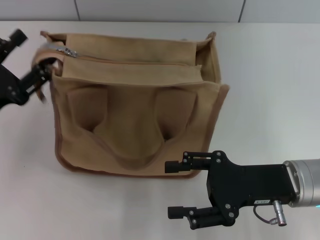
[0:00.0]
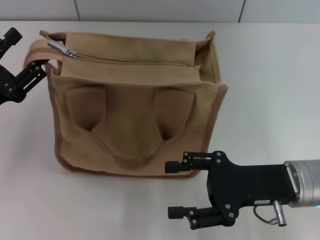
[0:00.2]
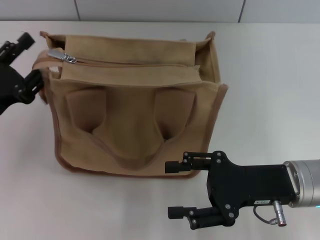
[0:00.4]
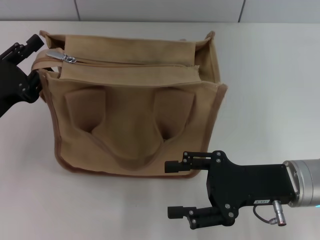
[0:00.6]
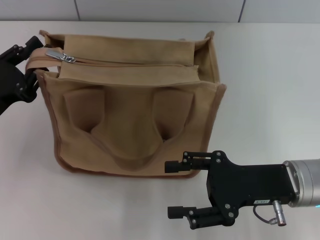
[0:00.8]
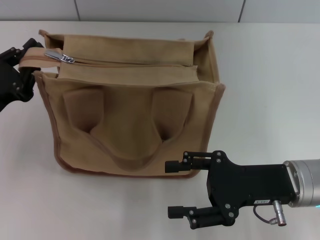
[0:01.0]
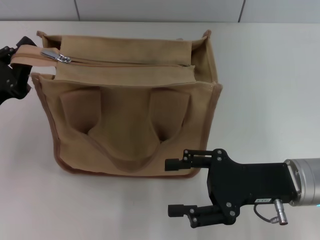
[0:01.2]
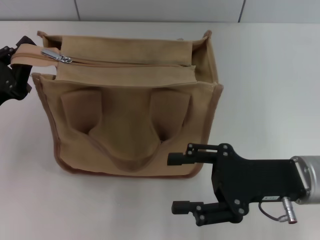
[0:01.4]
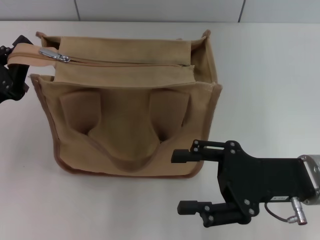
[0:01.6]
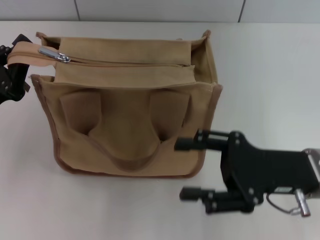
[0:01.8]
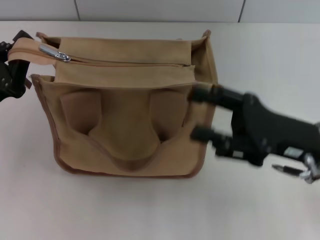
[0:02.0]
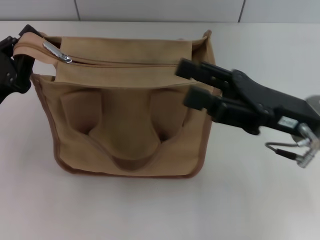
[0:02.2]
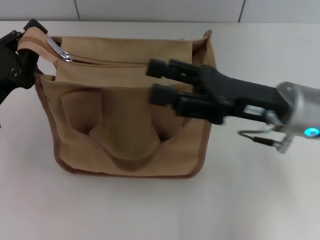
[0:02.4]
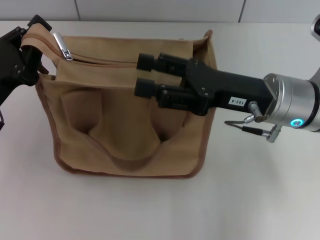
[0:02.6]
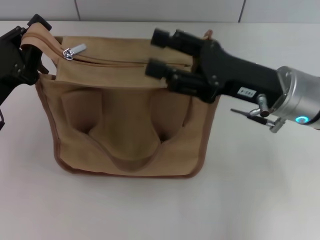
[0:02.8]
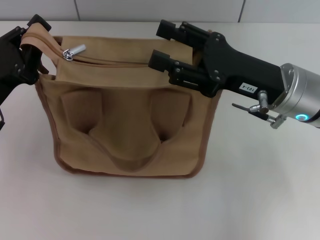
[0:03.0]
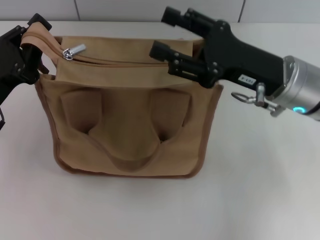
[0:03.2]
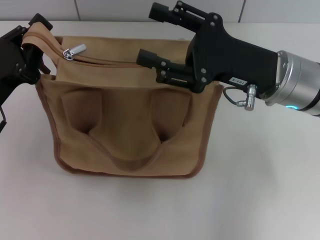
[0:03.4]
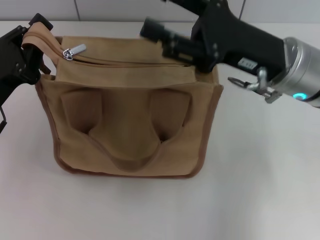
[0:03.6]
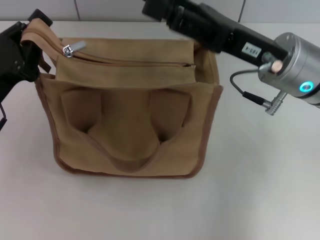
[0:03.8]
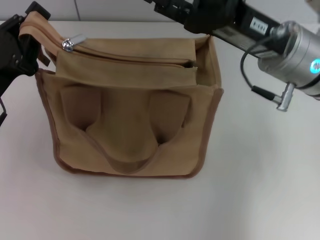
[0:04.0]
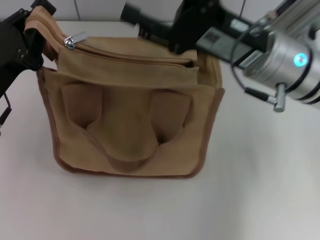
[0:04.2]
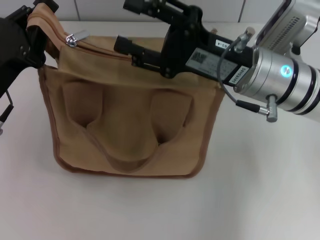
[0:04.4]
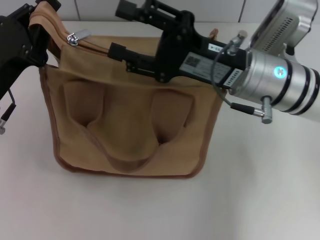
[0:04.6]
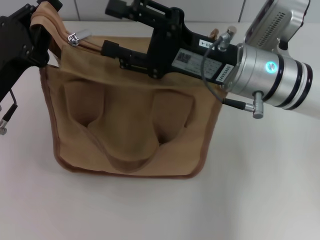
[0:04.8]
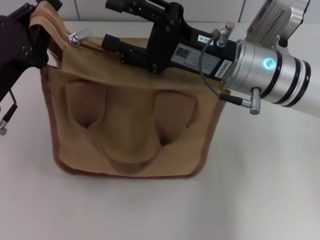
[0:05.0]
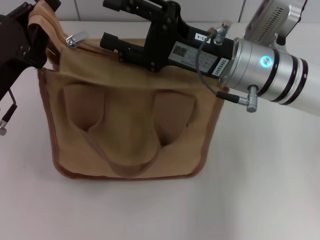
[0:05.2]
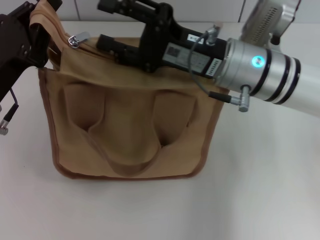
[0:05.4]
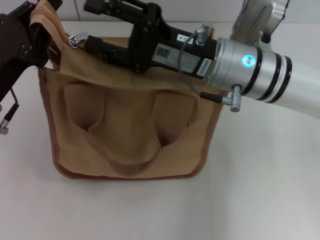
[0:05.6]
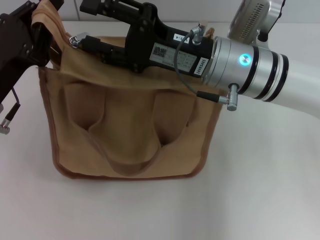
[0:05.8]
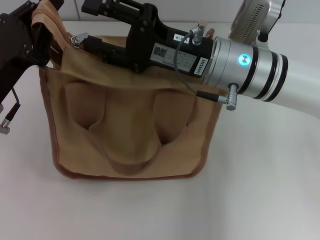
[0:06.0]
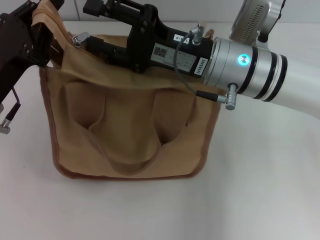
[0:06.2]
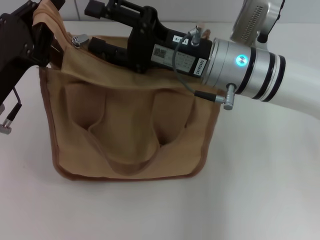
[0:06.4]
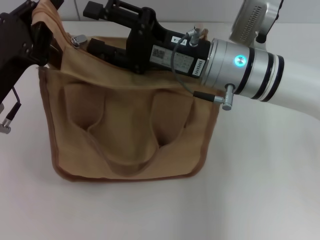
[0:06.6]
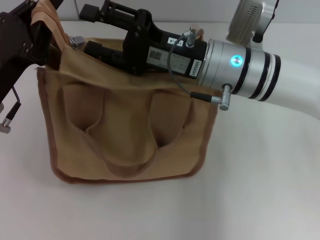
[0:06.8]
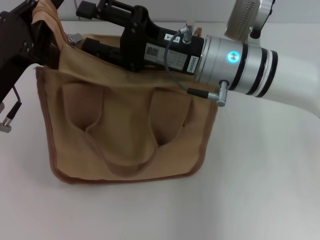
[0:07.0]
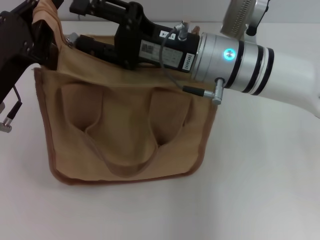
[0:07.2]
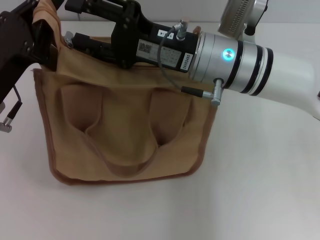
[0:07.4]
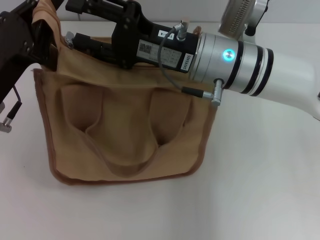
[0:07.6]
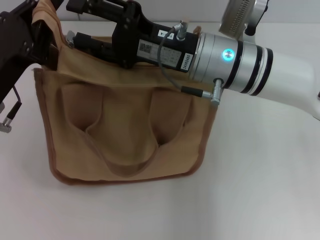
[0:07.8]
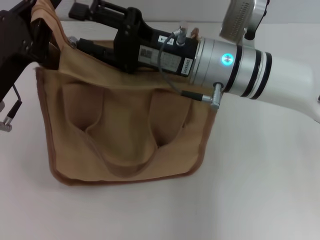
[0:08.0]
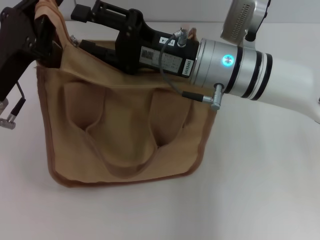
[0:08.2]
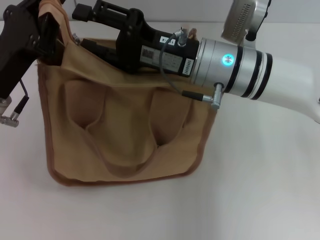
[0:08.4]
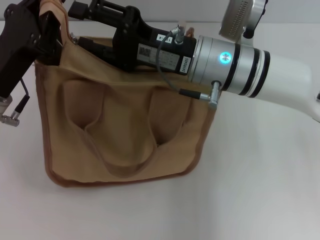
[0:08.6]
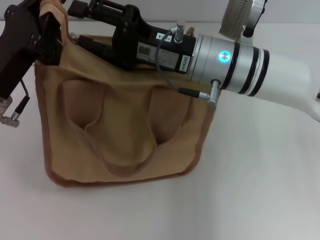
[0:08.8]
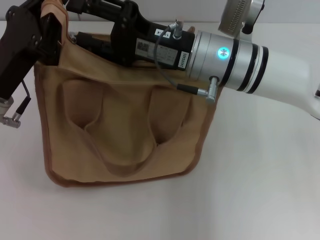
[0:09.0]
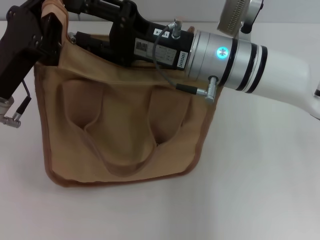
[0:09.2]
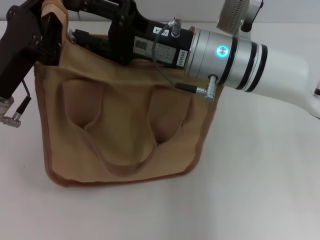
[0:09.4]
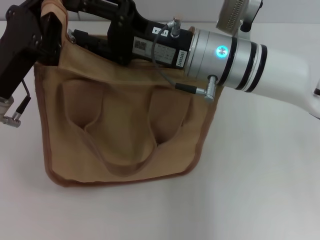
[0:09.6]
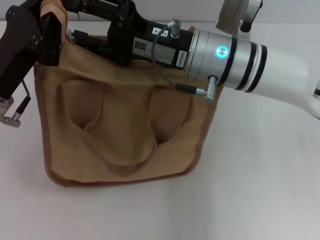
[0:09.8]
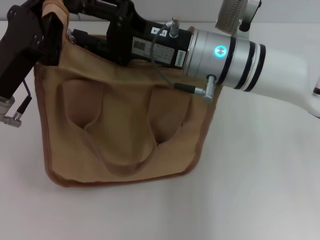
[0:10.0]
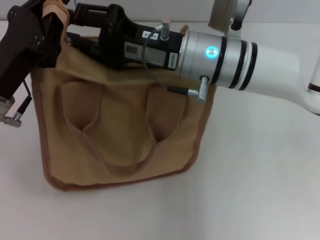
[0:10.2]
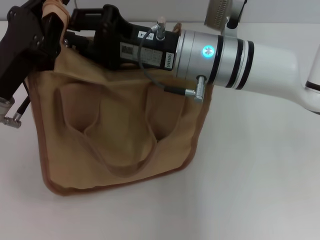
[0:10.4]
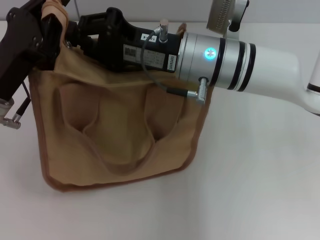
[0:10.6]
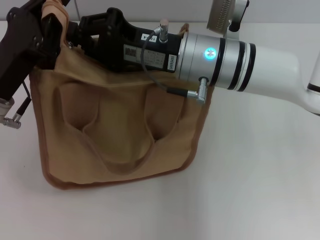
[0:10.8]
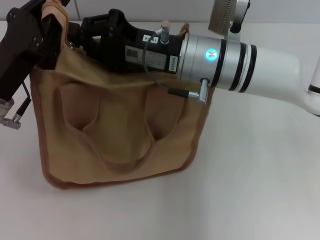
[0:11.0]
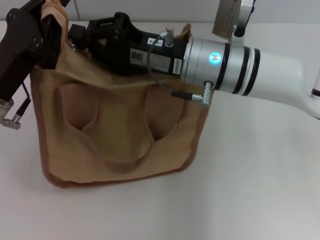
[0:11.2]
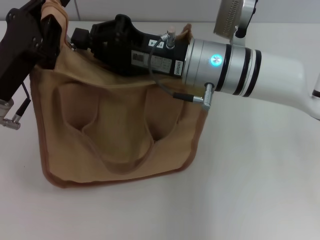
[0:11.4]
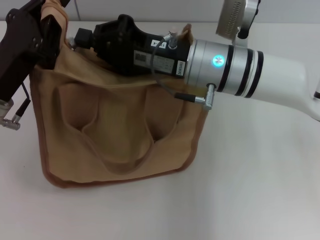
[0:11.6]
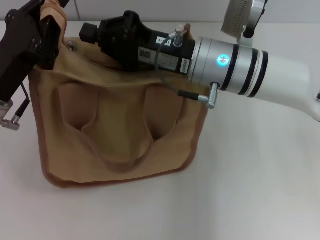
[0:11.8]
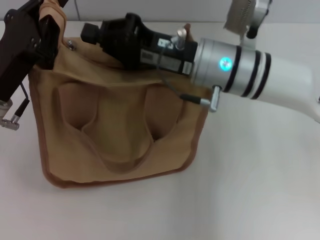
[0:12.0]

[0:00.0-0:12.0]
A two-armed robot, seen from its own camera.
0:00.0 to 0:01.6: The left gripper closes.
0:01.6 to 0:03.0: The right gripper travels forward by roughly 10 cm.
0:06.0 to 0:07.6: The grippers make only small movements.
0:07.6 to 0:09.0: The two grippers keep their place.
0:09.0 to 0:10.4: The right gripper closes its fingers.
0:10.4 to 0:12.0: The right gripper closes.

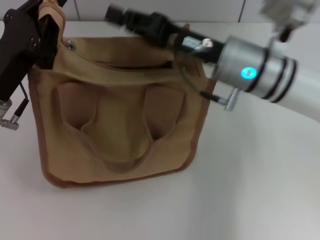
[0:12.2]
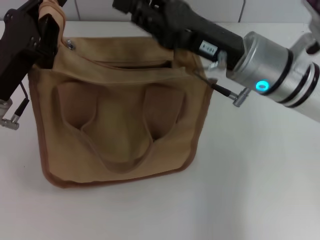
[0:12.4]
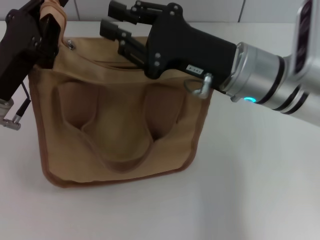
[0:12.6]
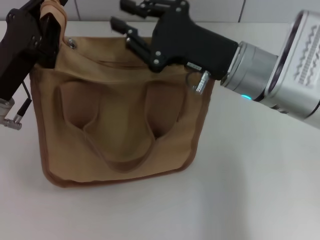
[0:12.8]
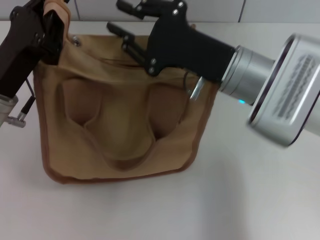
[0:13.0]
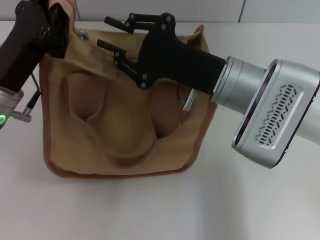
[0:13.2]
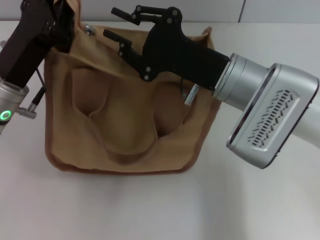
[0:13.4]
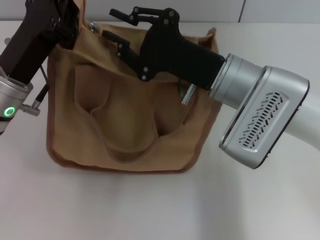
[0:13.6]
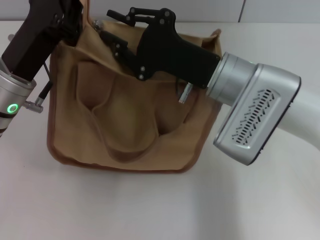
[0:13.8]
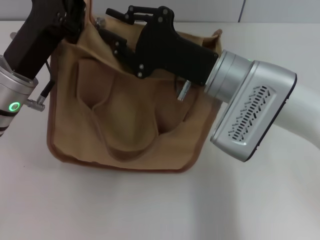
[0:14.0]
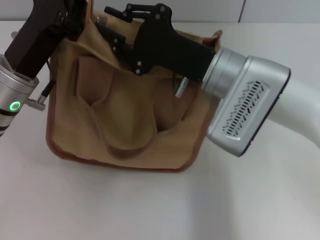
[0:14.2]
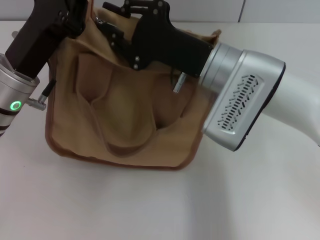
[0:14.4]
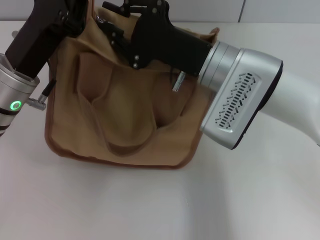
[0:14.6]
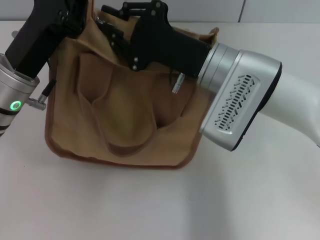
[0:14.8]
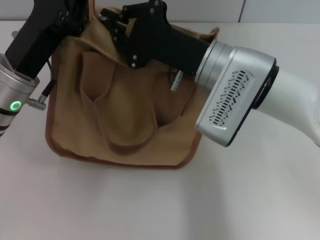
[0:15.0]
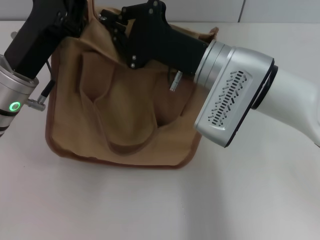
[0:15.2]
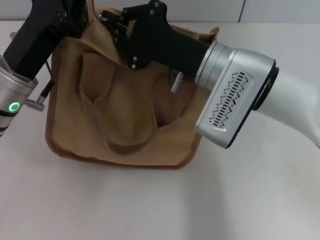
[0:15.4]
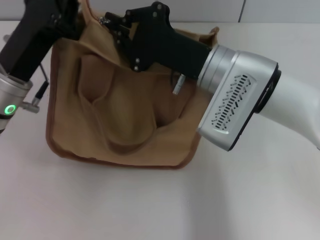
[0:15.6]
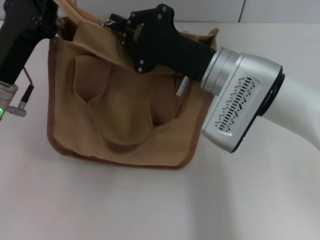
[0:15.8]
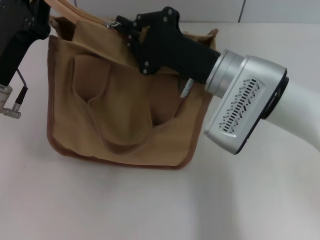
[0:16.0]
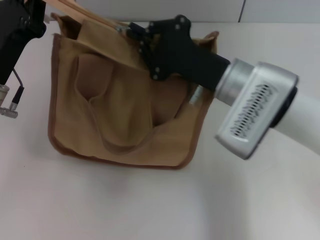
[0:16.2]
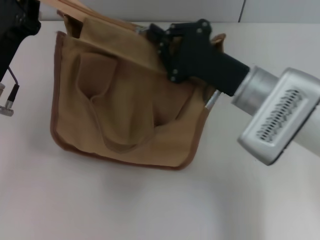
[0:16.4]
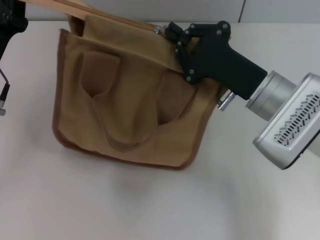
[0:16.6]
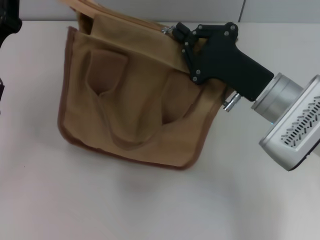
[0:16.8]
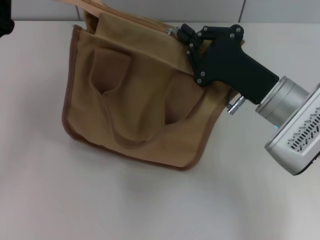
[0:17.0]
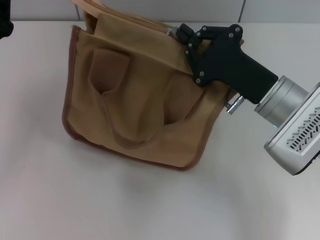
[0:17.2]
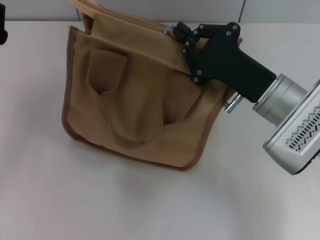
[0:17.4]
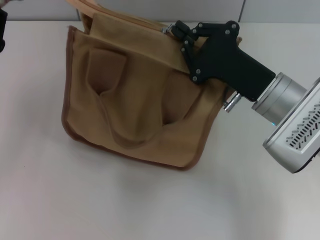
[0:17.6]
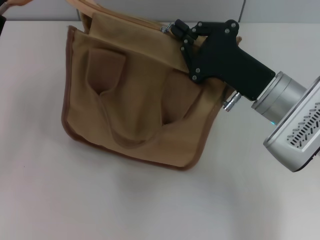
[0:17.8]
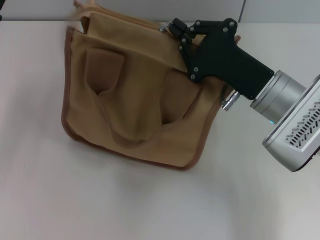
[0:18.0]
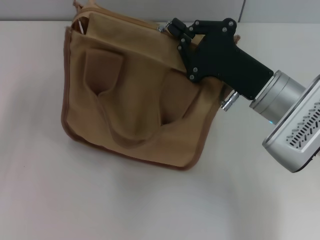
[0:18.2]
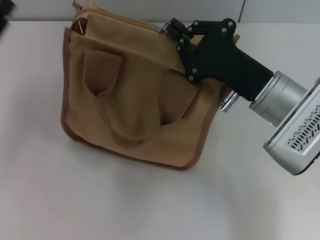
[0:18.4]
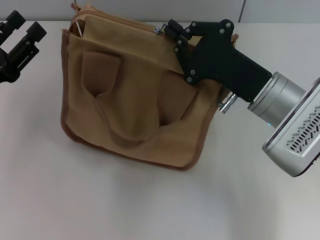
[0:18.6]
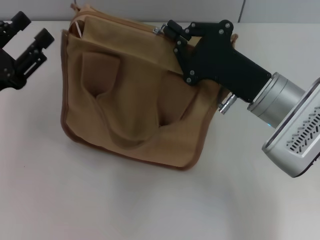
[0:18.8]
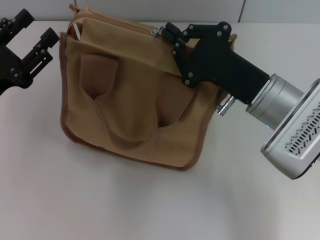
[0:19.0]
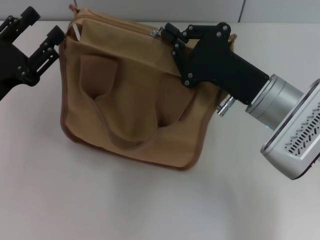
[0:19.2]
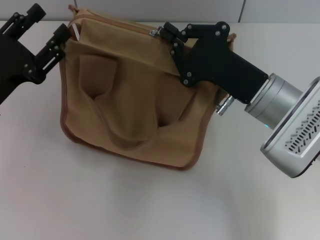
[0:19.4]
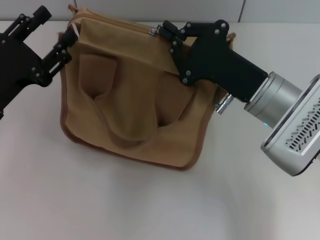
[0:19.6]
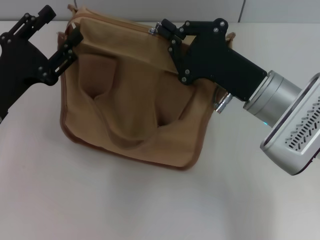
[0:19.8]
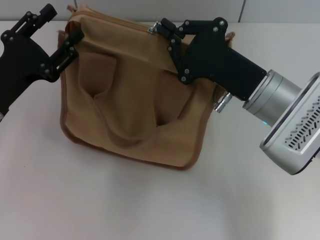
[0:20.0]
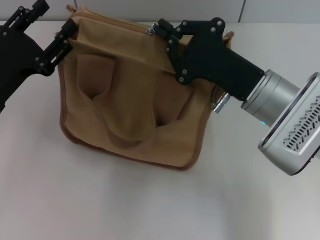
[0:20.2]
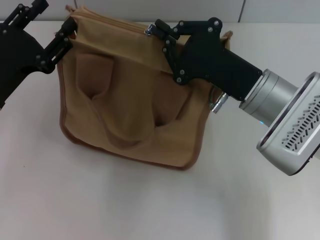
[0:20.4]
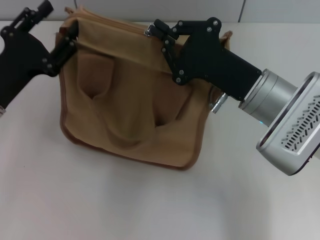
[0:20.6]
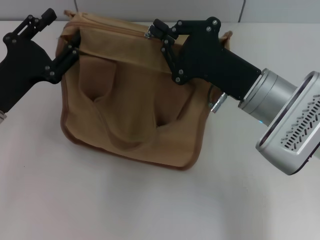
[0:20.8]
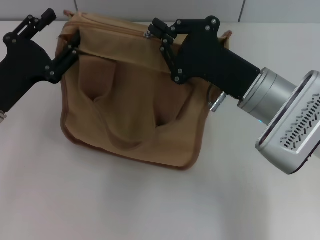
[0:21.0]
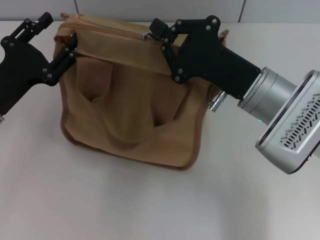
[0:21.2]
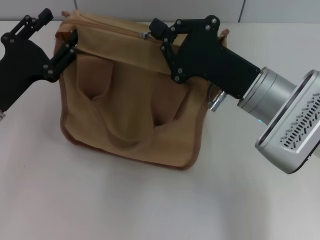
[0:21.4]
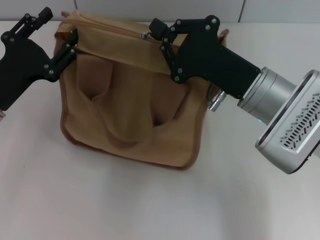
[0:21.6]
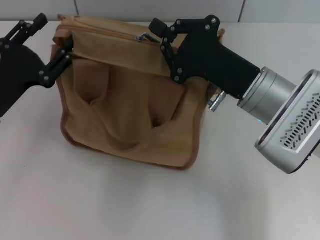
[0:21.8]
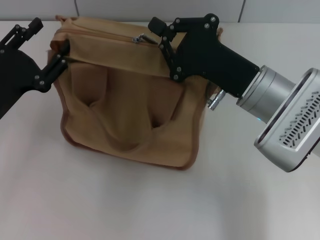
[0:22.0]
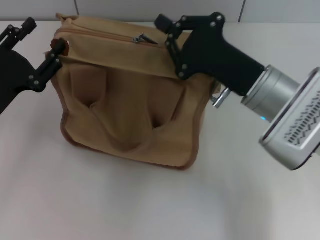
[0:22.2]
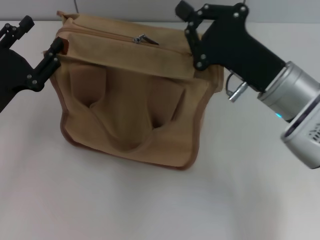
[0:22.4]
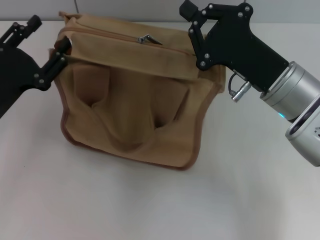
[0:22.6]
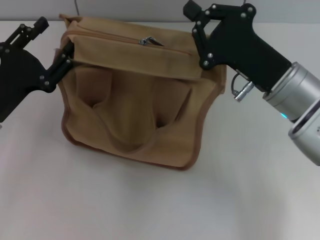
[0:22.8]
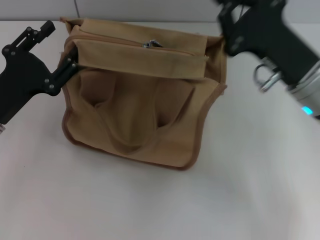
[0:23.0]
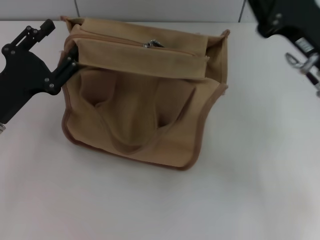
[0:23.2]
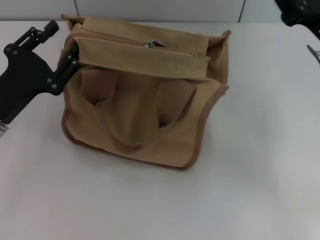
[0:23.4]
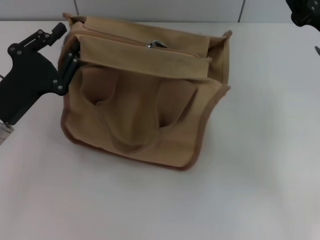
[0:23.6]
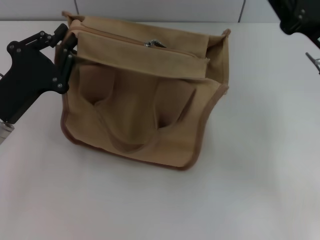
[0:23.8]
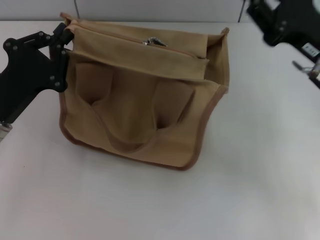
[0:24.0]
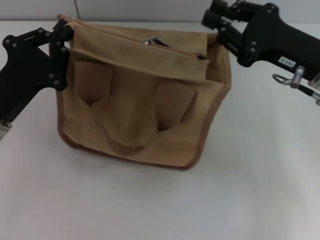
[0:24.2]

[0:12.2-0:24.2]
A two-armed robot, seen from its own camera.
0:12.2 to 0:13.8: The right gripper opens its fingers.
0:13.8 to 0:15.2: The right gripper closes up.
0:15.2 to 0:16.6: The left gripper is displaced to the left by some 5 cm, while the right gripper moves to the right, roughly 5 cm.
0:16.6 to 0:18.2: The left gripper moves to the left, approximately 5 cm, and opens.
0:19.8 to 0:22.6: The grippers make only small movements.
0:22.6 to 0:24.2: The right gripper heads to the right, covering roughly 5 cm. The left gripper closes its fingers.
